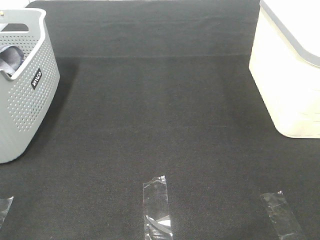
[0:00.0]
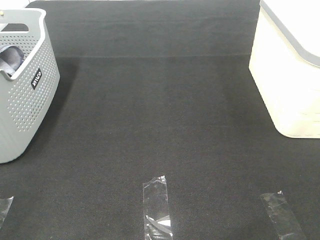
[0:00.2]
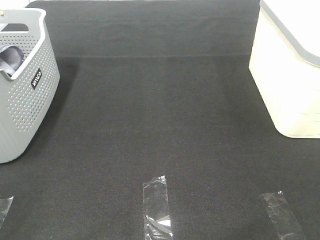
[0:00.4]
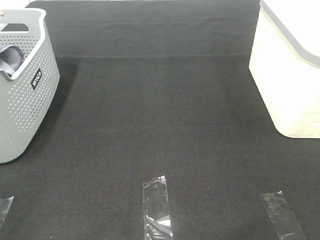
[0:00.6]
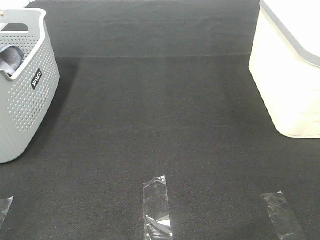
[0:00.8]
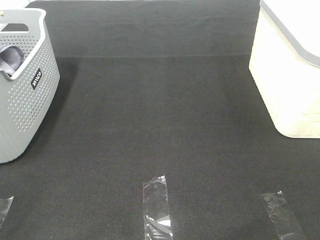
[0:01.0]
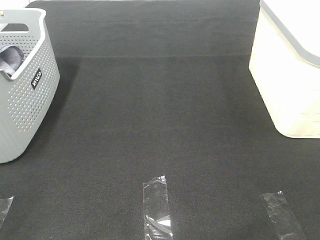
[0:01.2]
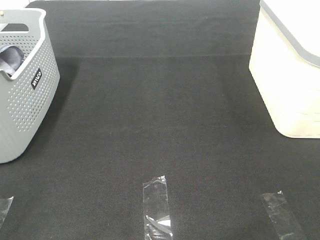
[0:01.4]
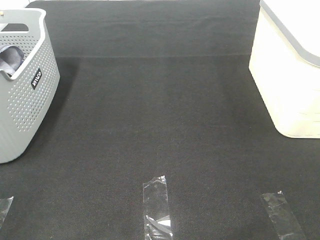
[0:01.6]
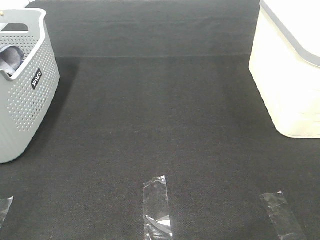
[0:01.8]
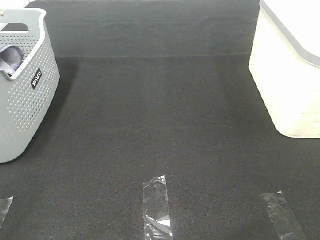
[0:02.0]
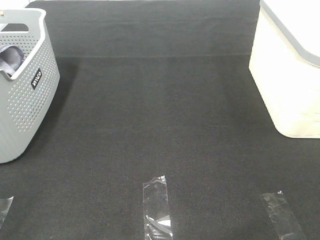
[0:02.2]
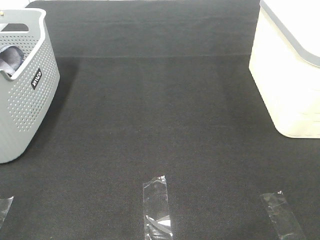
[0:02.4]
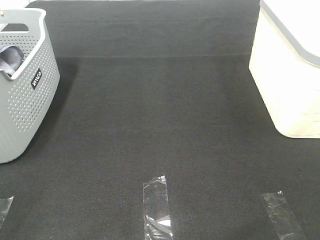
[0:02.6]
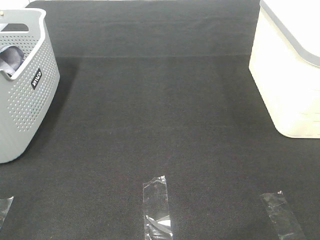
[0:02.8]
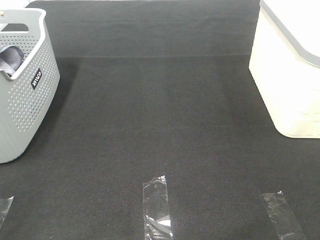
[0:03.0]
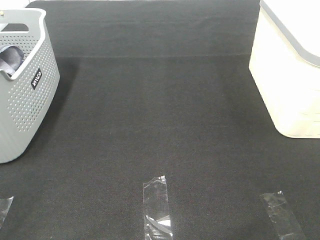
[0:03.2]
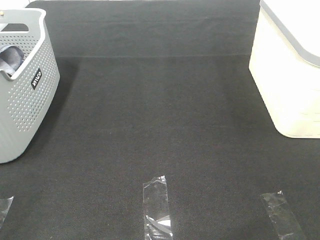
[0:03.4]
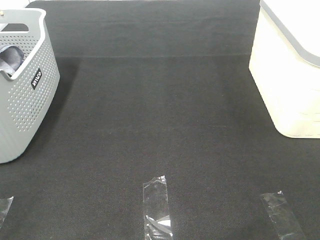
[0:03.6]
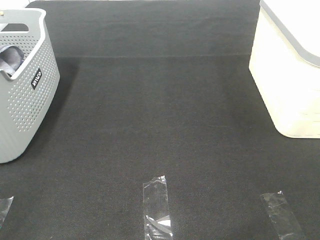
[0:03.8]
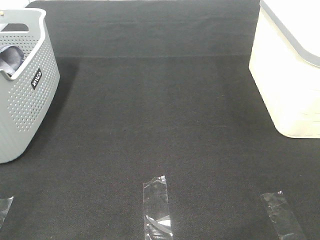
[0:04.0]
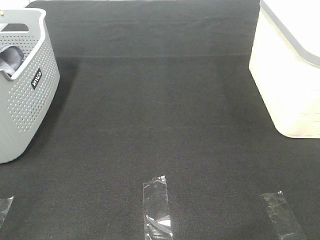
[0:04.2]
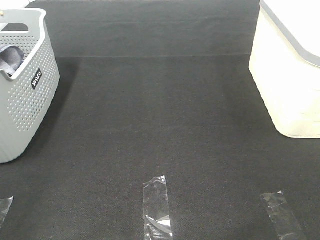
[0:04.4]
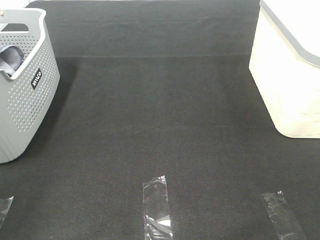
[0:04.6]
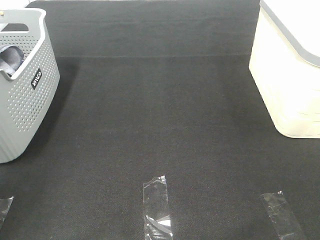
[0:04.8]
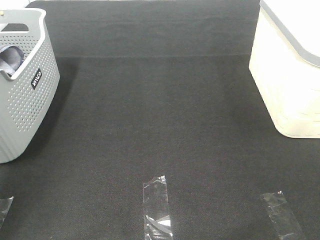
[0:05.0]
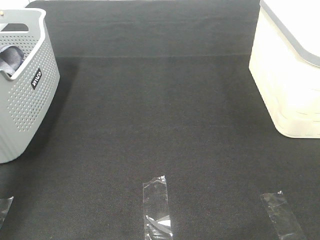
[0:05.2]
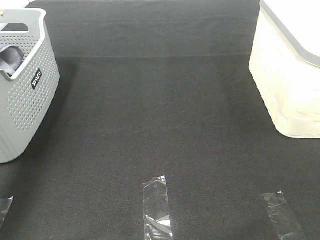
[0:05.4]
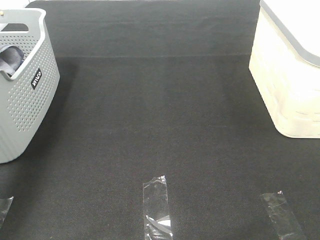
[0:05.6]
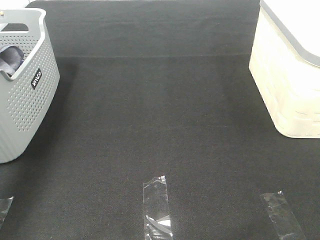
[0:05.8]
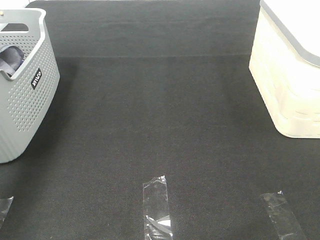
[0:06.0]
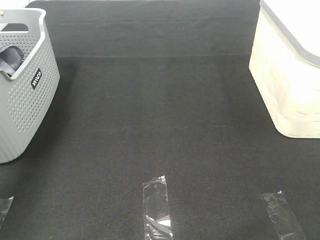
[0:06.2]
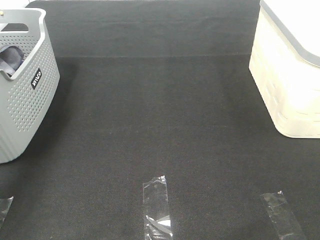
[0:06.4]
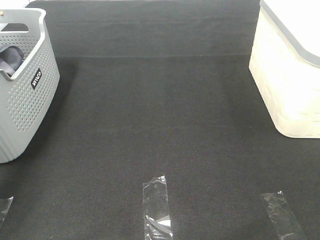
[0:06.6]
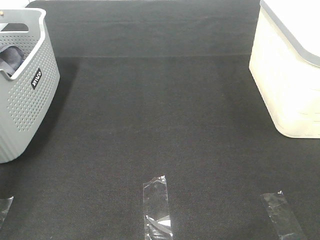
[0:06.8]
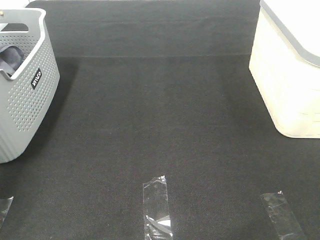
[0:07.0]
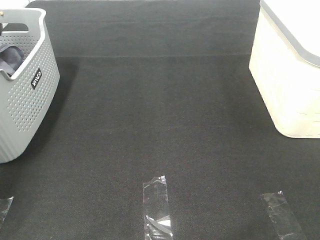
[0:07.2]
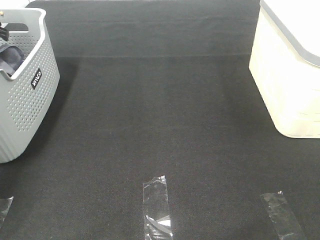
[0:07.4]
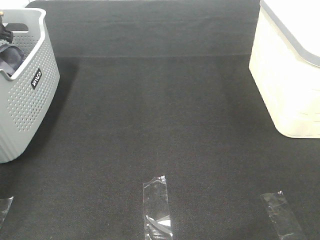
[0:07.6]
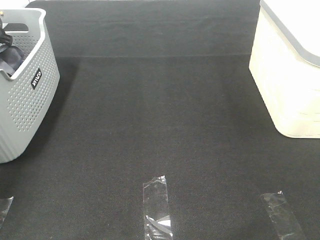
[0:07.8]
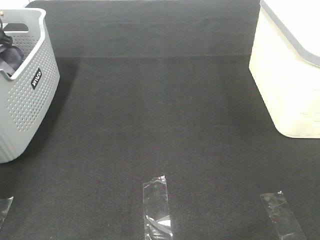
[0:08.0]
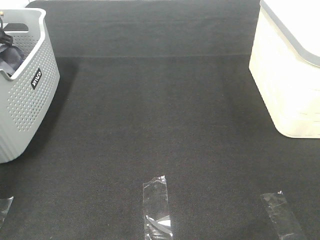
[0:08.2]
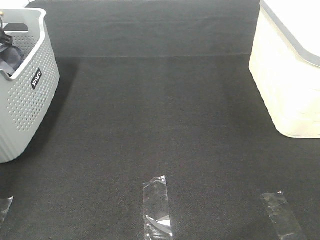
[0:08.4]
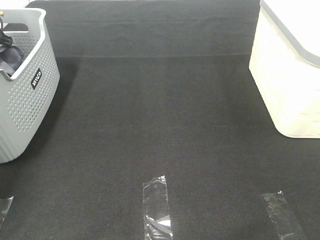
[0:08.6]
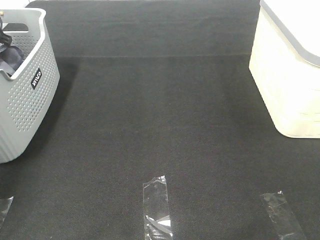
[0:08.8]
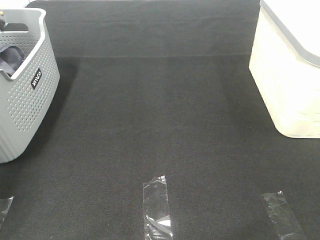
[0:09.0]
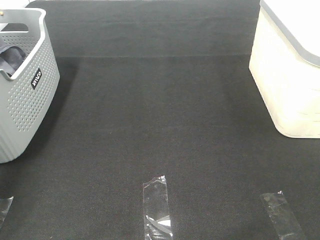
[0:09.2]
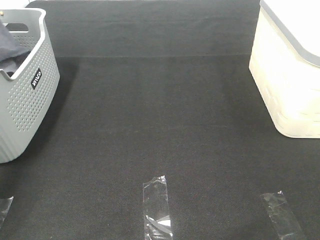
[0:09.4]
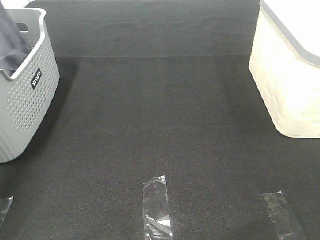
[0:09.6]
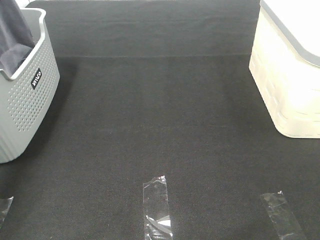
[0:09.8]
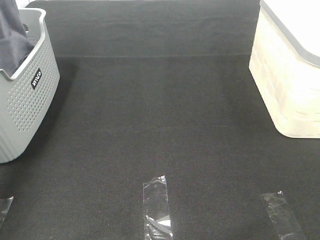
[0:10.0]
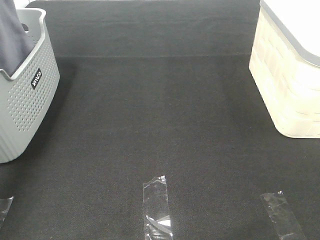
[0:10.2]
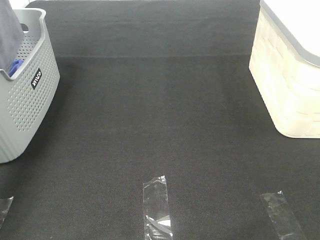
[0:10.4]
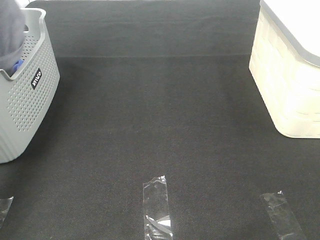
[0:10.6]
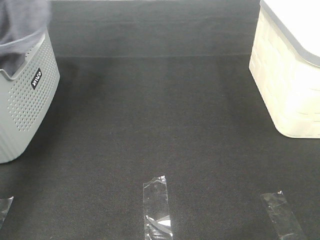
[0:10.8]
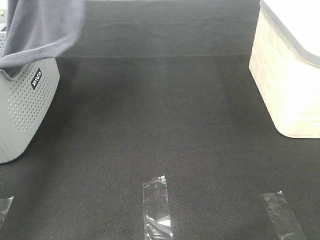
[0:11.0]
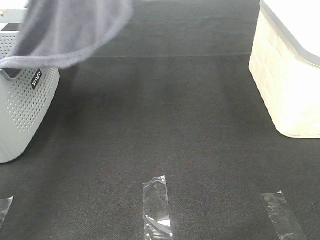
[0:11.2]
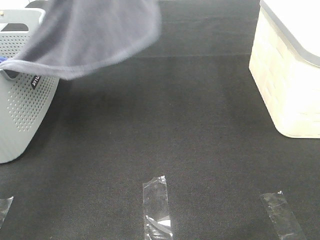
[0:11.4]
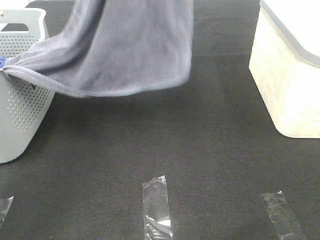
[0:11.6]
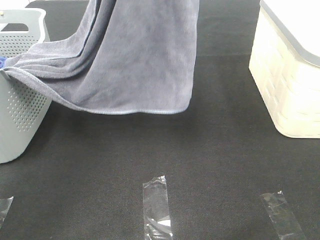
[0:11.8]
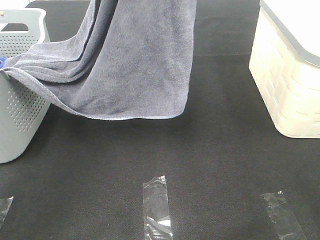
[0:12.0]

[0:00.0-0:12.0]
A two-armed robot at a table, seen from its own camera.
Task of the whole recording: Remove the towel and place it.
0.0 to 3.0 s: Both grippers stay put.
4.4 to 6.0 s: The left gripper heads forward, covering roughly 35 cm.
6.0 to 7.6 s: The left gripper moves downward, forward and to the left, approximately 20 cm.
9.0 to 10.4 s: The left gripper travels upward and backward by some 25 cm.
10.4 to 12.0 s: The right gripper moves forward, about 10 cm. Meanwhile the left gripper goes some 20 cm to the right.

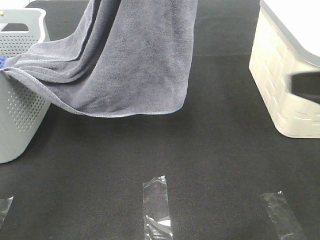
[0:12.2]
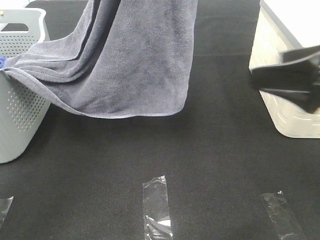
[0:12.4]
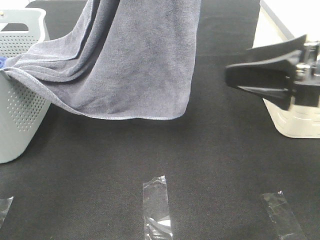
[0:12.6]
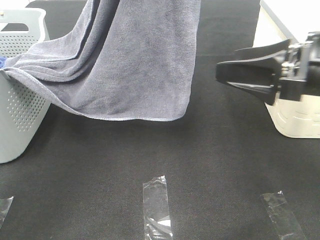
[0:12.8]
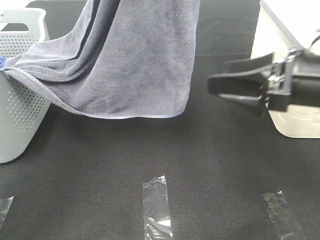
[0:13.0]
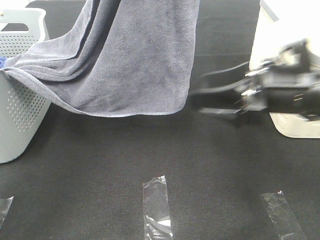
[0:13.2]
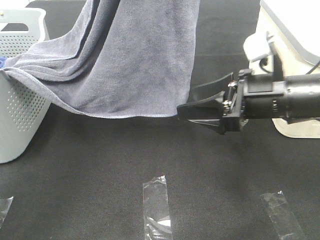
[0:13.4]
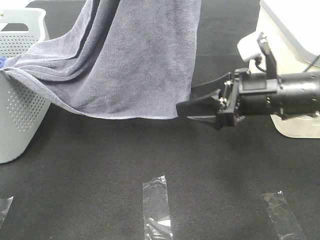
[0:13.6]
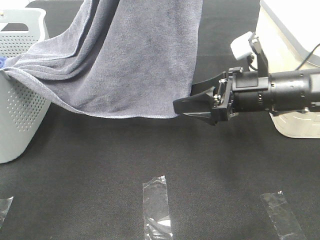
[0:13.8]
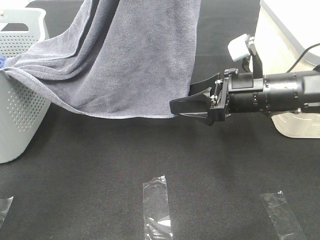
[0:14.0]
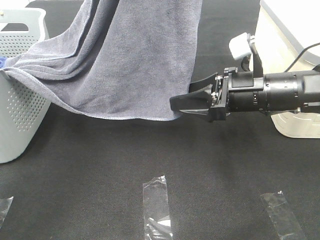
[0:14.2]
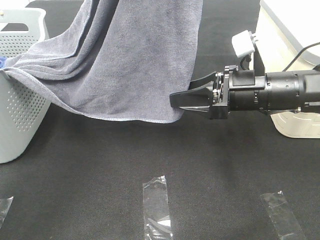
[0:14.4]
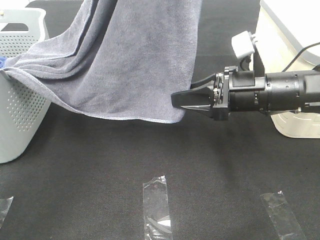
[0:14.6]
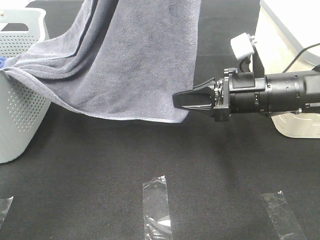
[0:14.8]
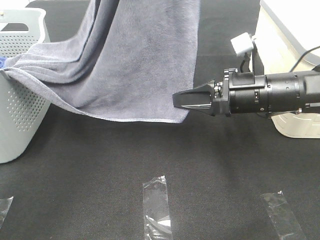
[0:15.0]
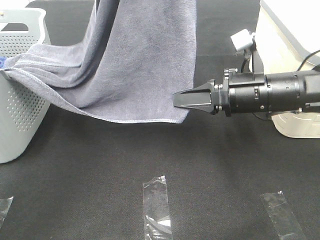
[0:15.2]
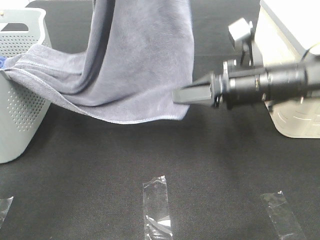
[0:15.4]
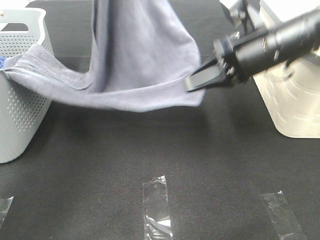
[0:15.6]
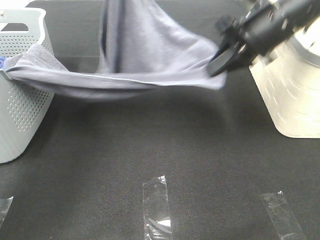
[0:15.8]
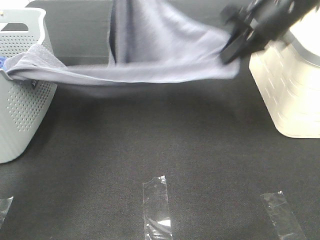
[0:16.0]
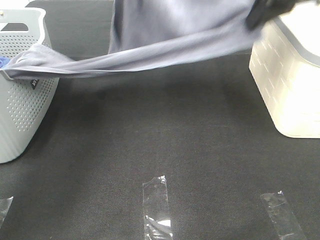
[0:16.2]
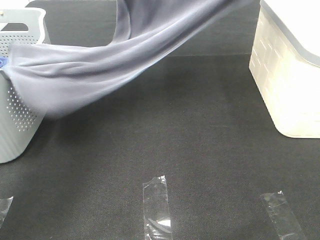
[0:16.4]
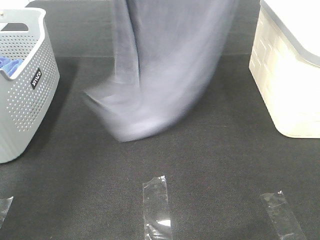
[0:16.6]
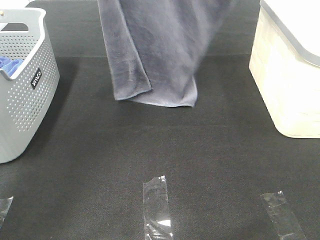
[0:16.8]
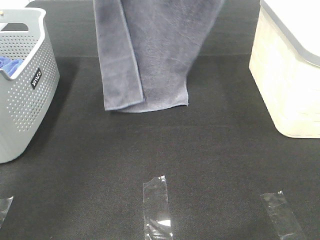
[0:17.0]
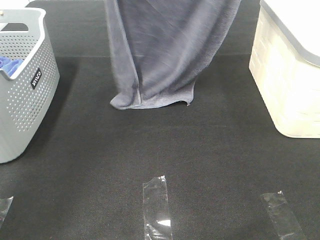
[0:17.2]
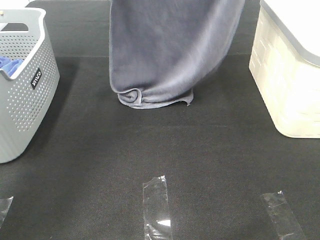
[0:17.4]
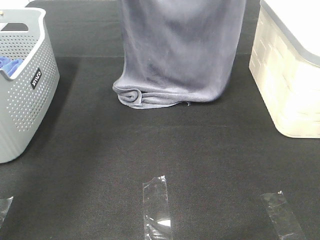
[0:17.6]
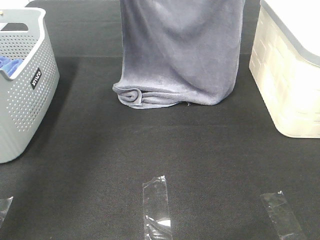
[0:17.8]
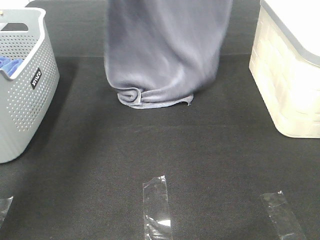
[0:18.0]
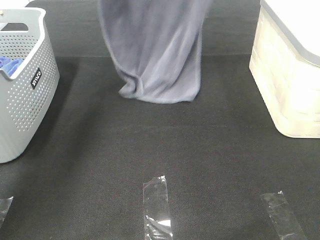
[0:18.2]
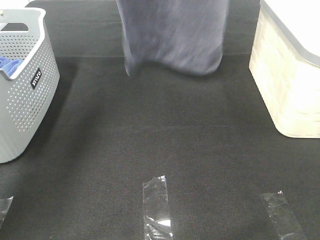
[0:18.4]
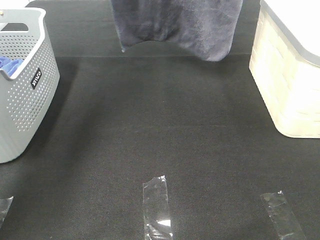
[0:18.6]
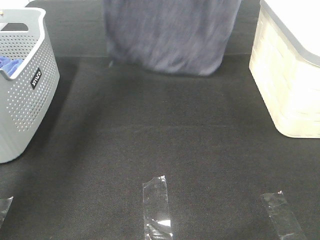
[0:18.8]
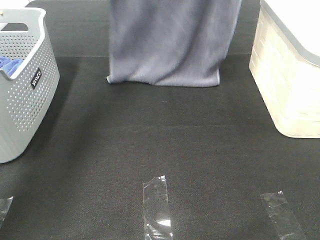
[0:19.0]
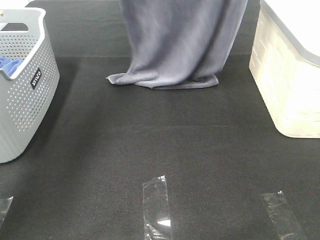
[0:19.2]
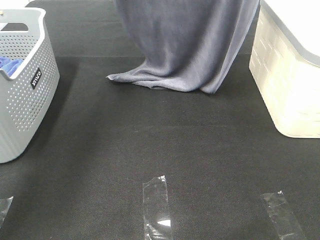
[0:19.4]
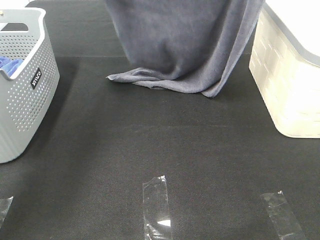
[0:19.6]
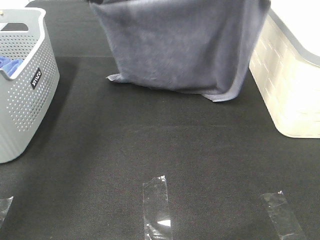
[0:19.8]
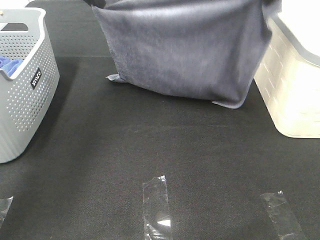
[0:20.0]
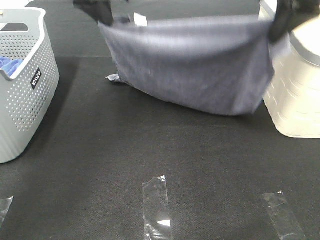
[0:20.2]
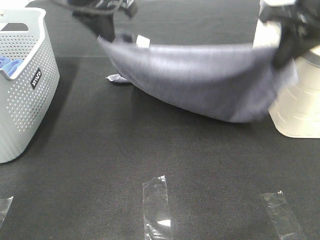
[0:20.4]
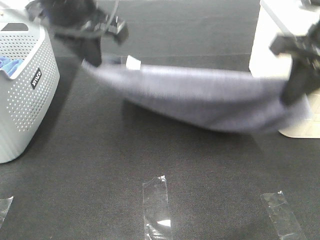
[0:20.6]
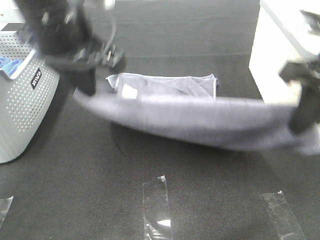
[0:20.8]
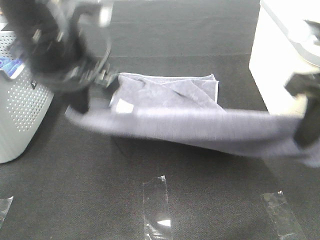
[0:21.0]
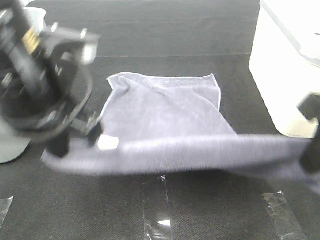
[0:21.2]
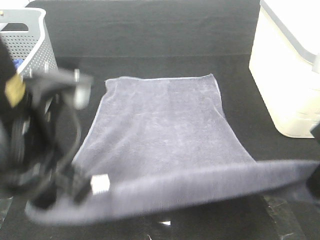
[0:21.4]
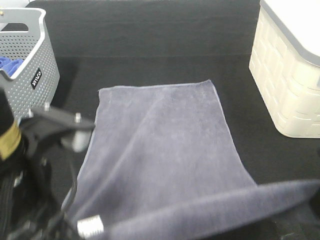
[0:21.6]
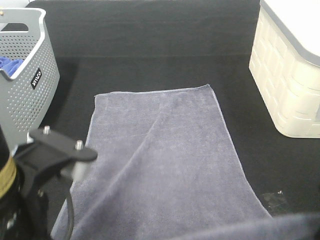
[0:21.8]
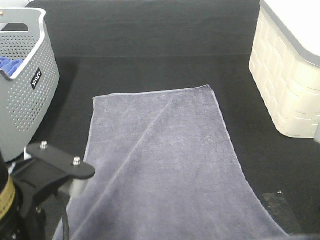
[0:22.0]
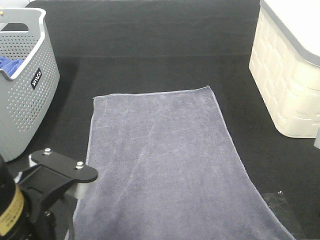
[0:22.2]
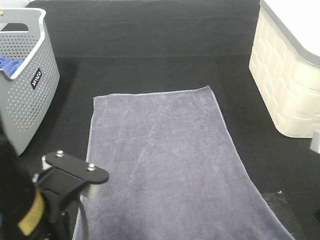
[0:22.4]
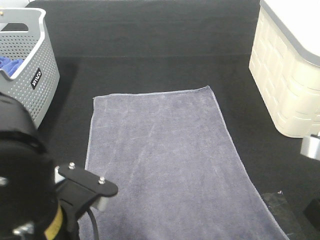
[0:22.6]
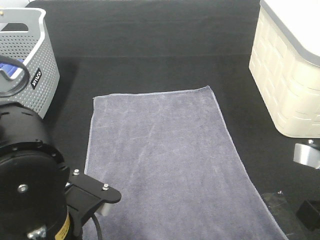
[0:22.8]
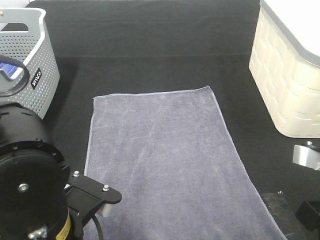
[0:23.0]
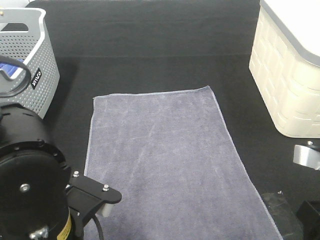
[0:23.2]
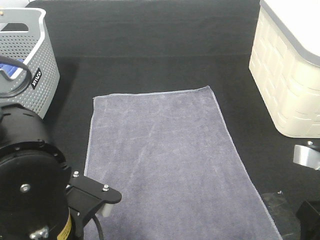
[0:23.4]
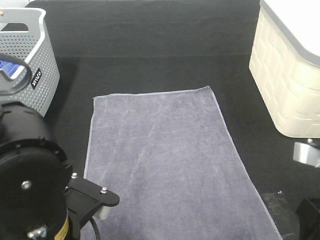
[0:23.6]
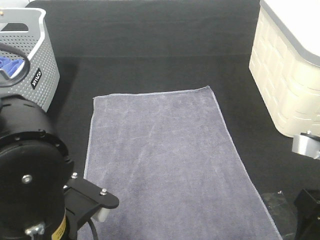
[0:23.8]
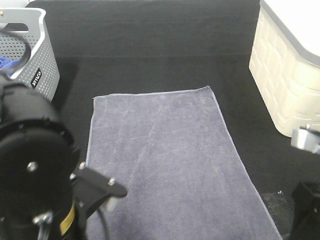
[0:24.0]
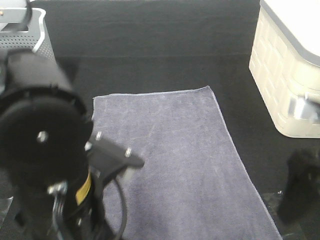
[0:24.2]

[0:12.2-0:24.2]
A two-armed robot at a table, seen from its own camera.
Task of the whole recording: Remove the towel and place it.
Step, 12.2 to 13.8 s: Right hand: grab a corner of the grey towel and straighten it.
Step, 14.0 to 19.0 s: Left hand: spread the grey towel flat on the table.
Step, 14.0 to 19.0 s: Right hand: spread the grey towel flat on the table.
12.2 to 13.8 s: The right gripper moves forward, downward and to the left, about 20 cm.
13.8 to 15.2 s: The right gripper closes its fingers.
15.2 to 16.6 s: The right gripper is displaced upward by some 30 cm, while the left gripper travels forward by some 10 cm.
16.6 to 18.2 s: The two grippers go approximately 5 cm forward. The right gripper reaches some 10 cm downward, then returns; the left gripper travels downward and back again, some 10 cm each way.
18.2 to 19.8 s: The right gripper heads backward and downward, covering roughly 10 cm. Meanwhile the left gripper moves downward, some 10 cm.
19.8 to 21.2 s: The left gripper moves backward, about 25 cm. Meanwhile the right gripper goes some 25 cm backward and downward.
21.2 to 22.6 s: The right gripper goes approximately 10 cm downward and backward, while the left gripper heads downward and backward, covering roughly 15 cm.
22.6 to 24.2 s: The right gripper ends up approximately 5 cm from where it was, and opens up; the left gripper changes place by roughly 5 cm, and opens its fingers.
